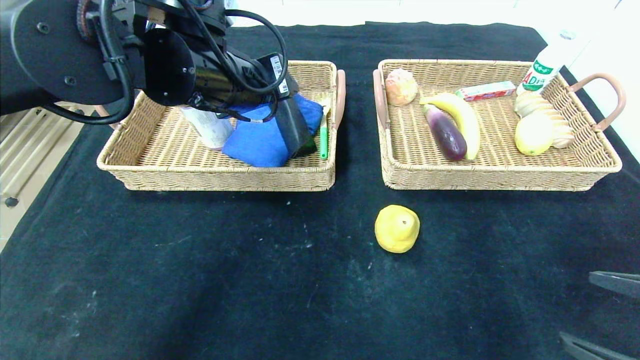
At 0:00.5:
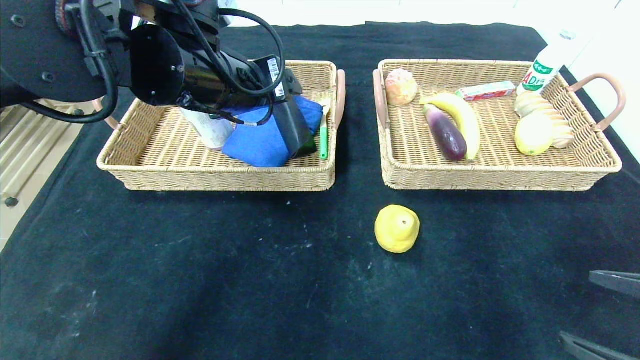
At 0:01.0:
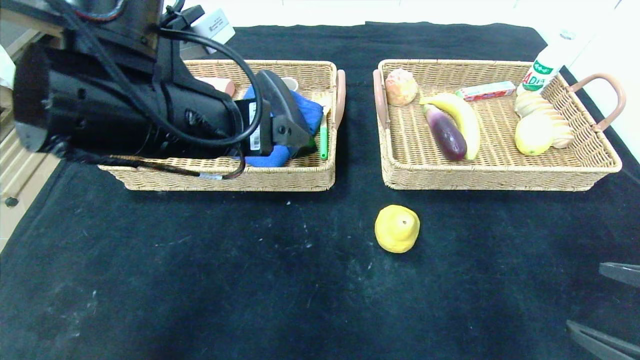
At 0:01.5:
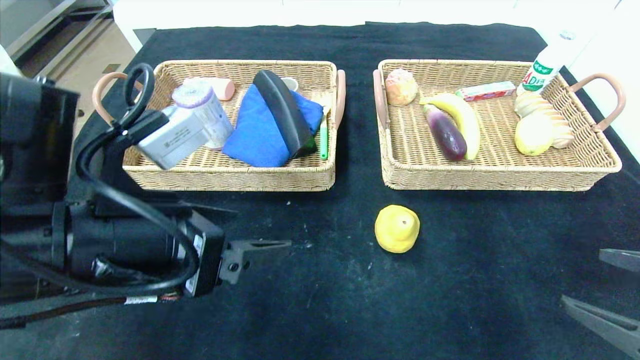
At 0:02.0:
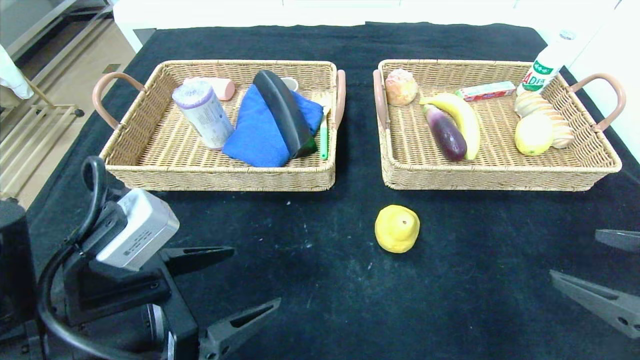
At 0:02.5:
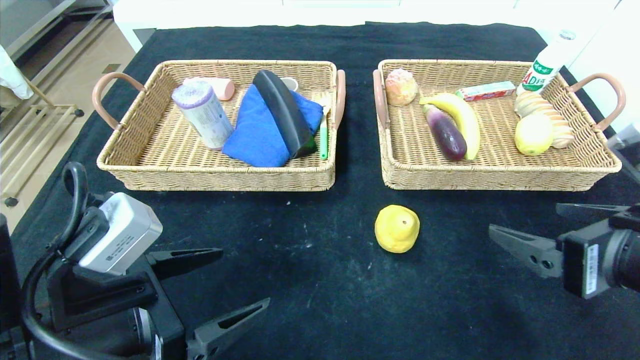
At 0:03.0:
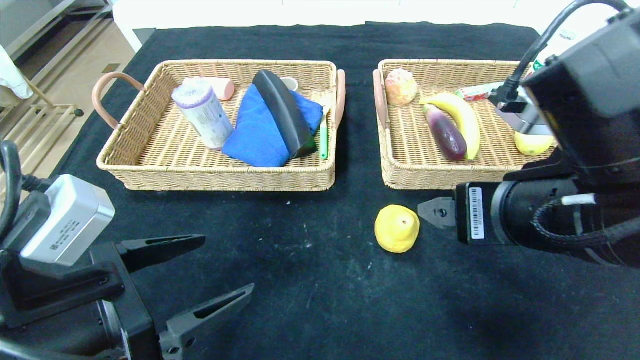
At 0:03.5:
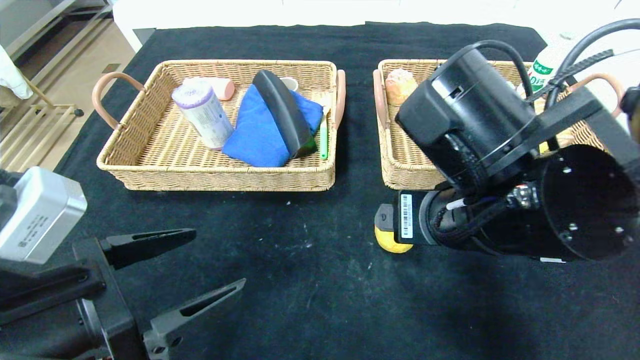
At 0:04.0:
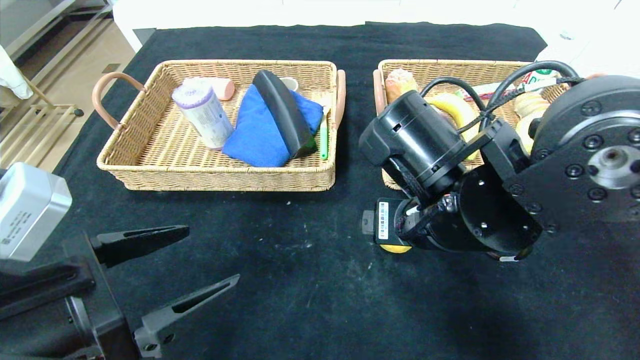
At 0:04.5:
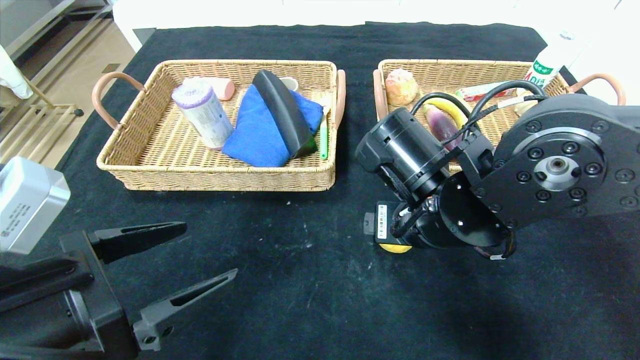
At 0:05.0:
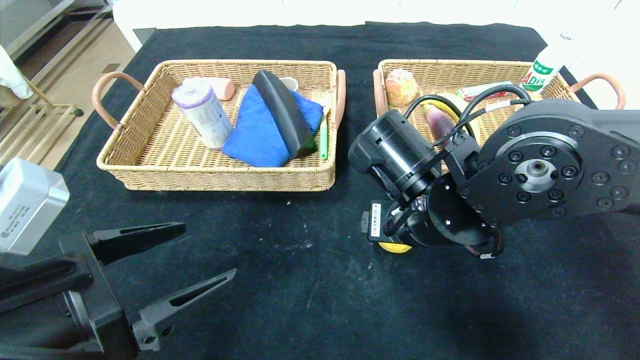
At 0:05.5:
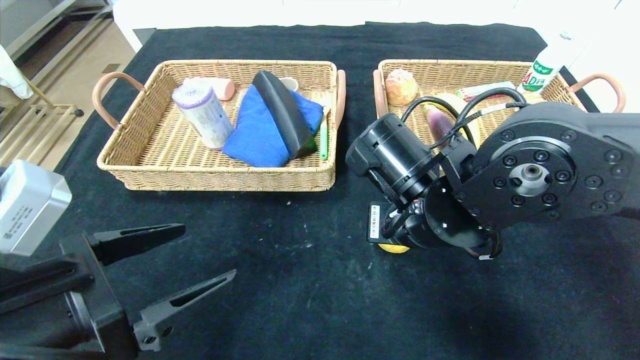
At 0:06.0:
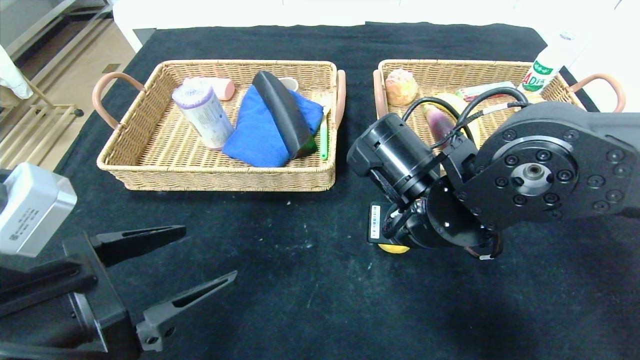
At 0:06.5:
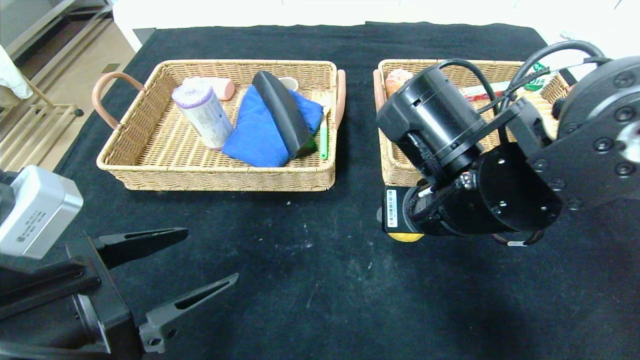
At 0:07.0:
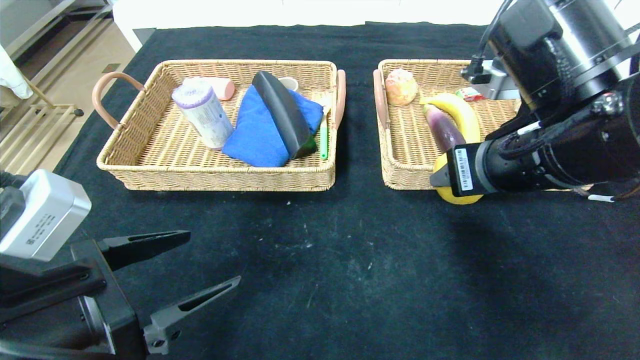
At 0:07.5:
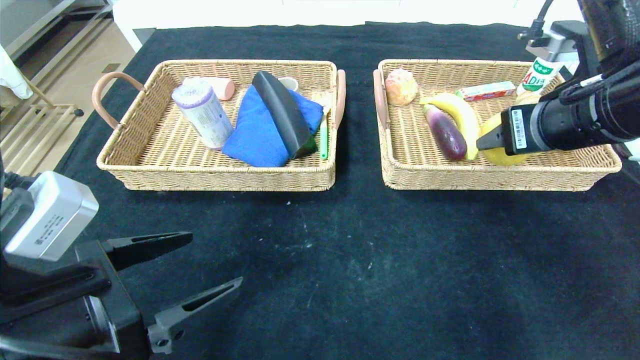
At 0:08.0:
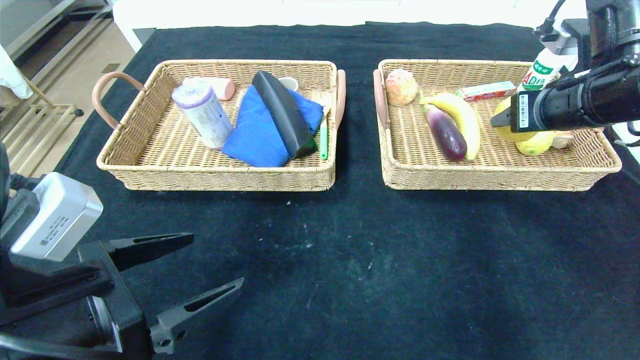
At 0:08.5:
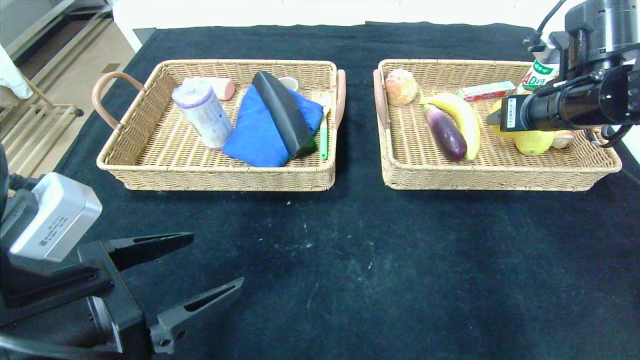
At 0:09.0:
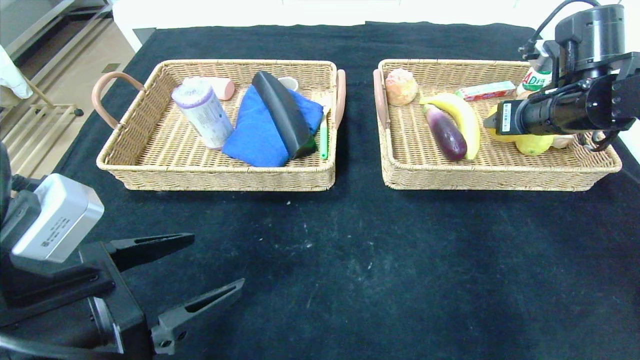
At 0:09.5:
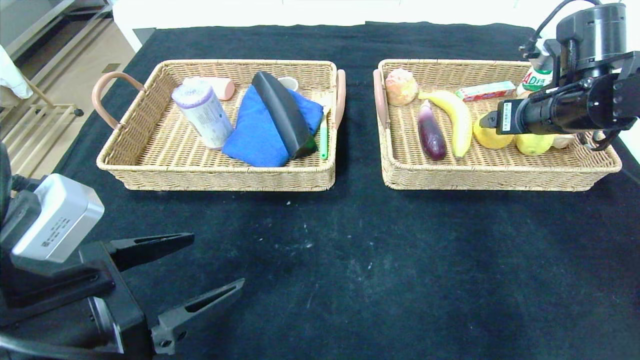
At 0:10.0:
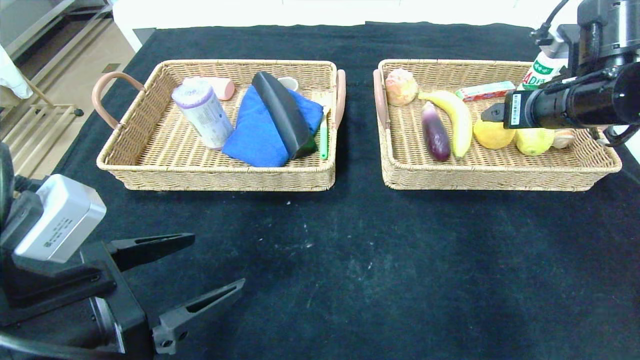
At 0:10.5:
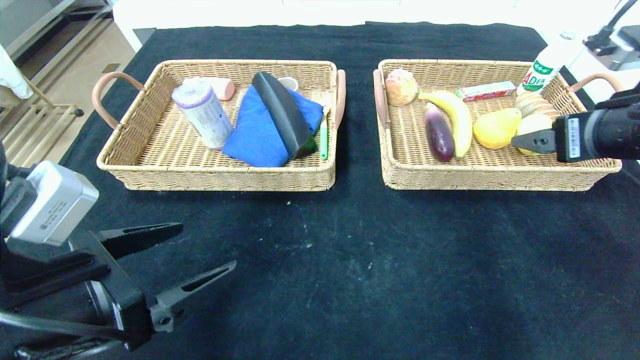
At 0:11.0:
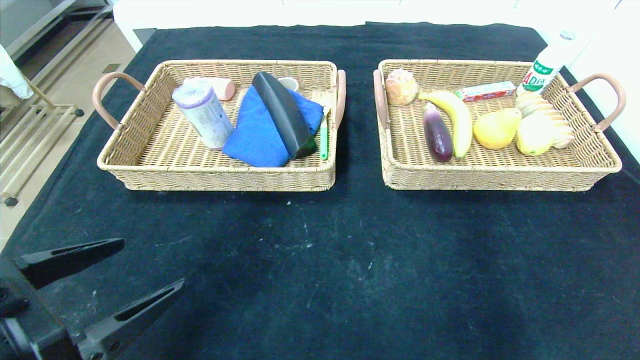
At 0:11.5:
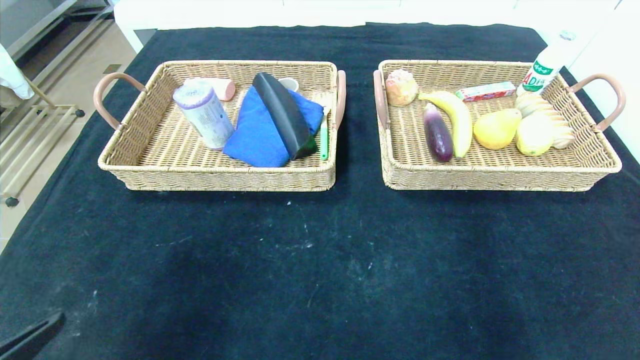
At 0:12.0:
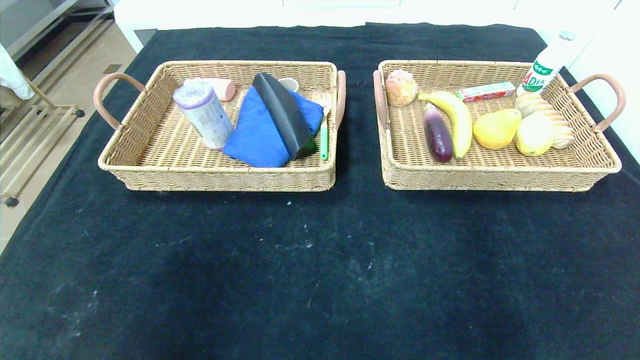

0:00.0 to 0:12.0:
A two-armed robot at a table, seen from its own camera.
Step, 0:00.0 to 0:02.0: Pick up the glasses case and put it in the left basket.
Step, 0:02.5 to 0:11.5: Pick up the pear and put it in the right basket.
0:00.0 to 0:02.0: The left gripper travels backward and downward by about 25 cm.
0:02.0 to 0:04.0: The right gripper is displaced to the left and forward by approximately 25 cm.
0:04.0 to 0:06.0: The right gripper closes.
0:06.0 to 0:08.0: The right gripper is displaced to the right and upward by approximately 20 cm.
0:08.0 to 0:10.0: The right gripper opens up.
0:10.0 to 0:12.0: The right gripper goes approximately 40 cm backward, while the left gripper is displaced backward and to the left by about 15 cm.

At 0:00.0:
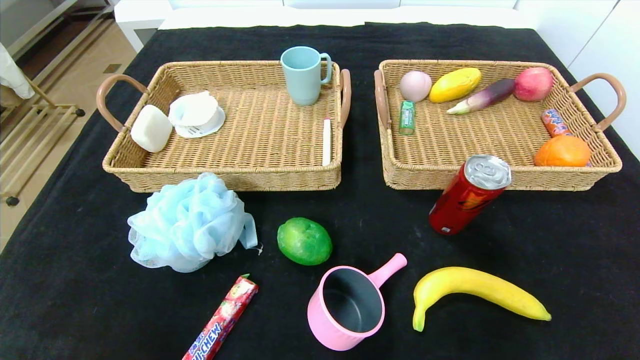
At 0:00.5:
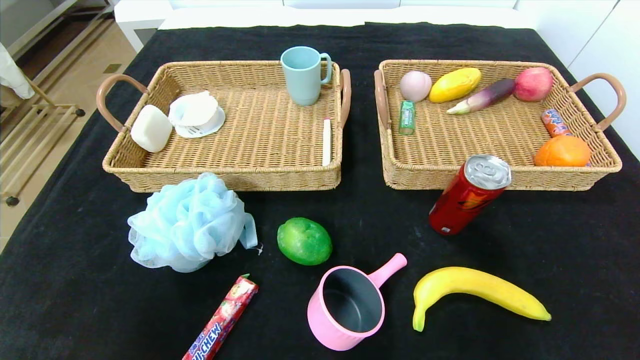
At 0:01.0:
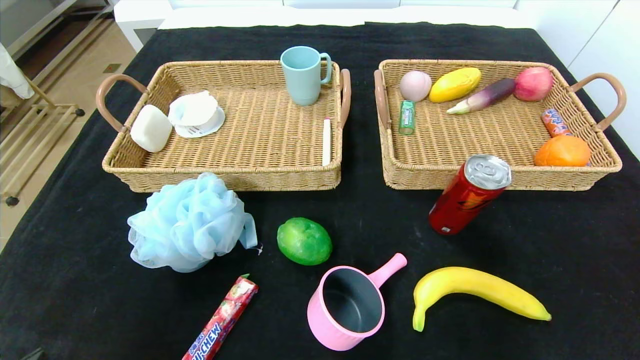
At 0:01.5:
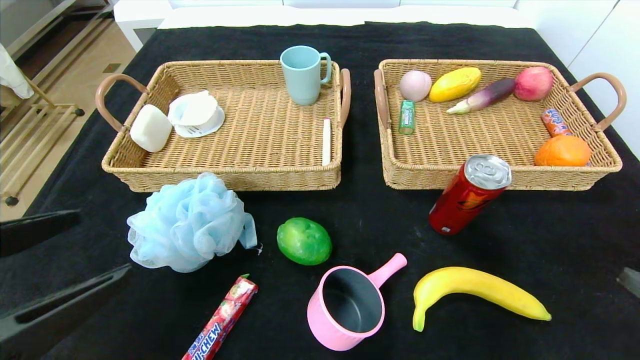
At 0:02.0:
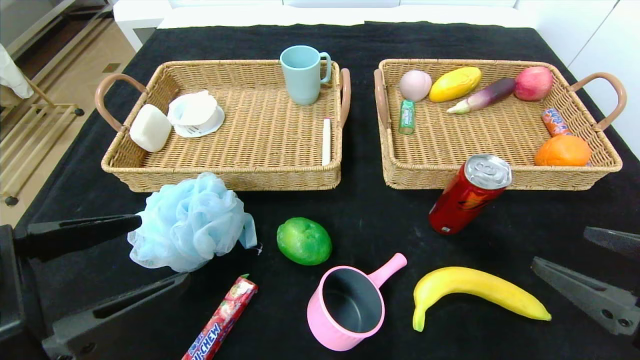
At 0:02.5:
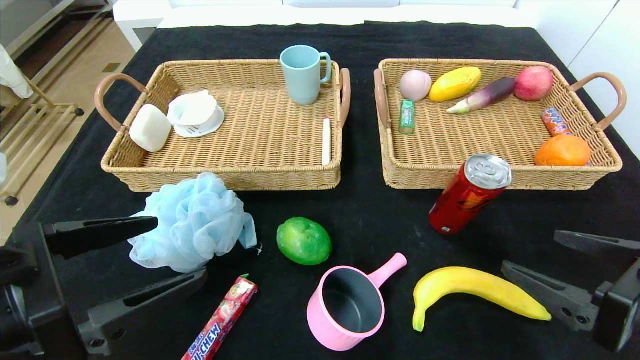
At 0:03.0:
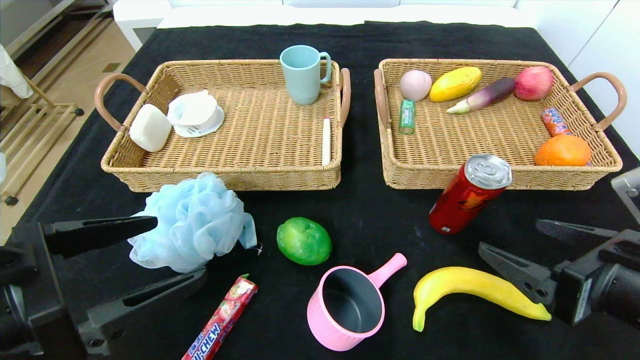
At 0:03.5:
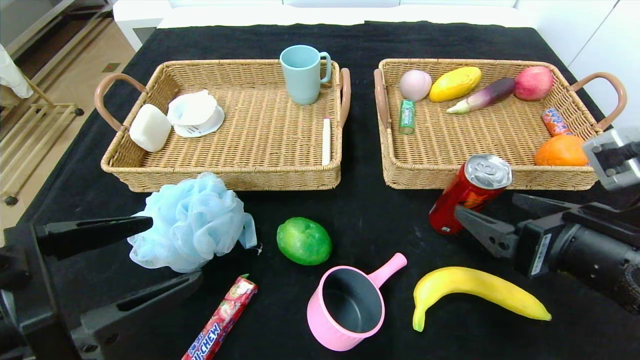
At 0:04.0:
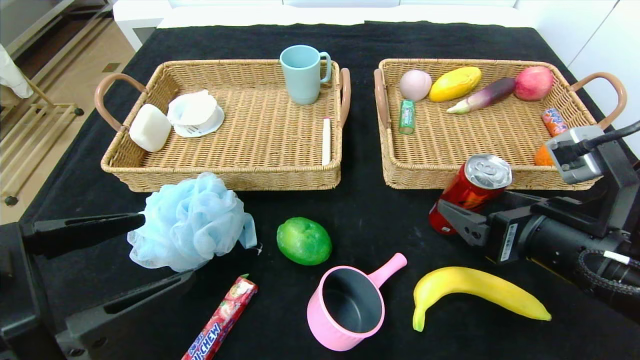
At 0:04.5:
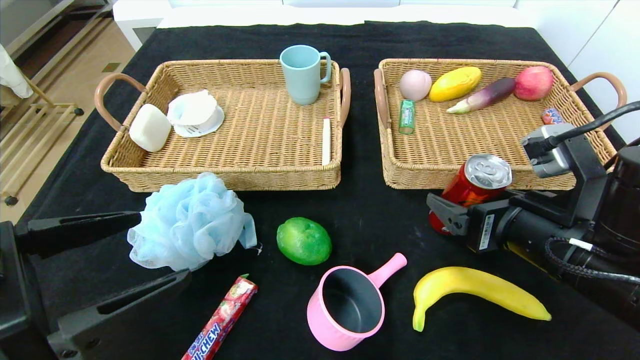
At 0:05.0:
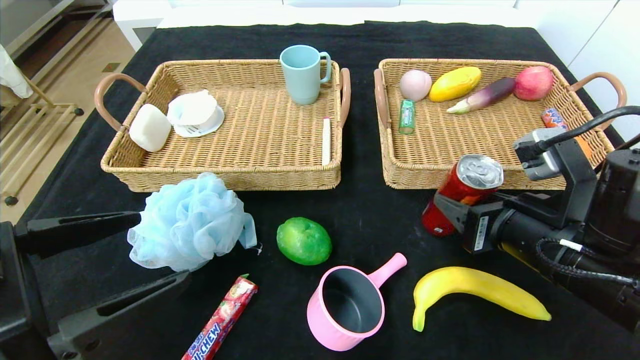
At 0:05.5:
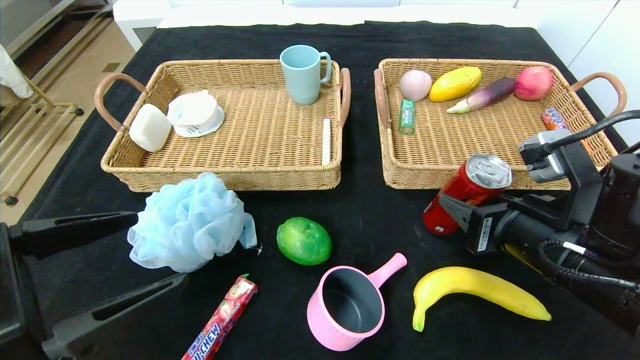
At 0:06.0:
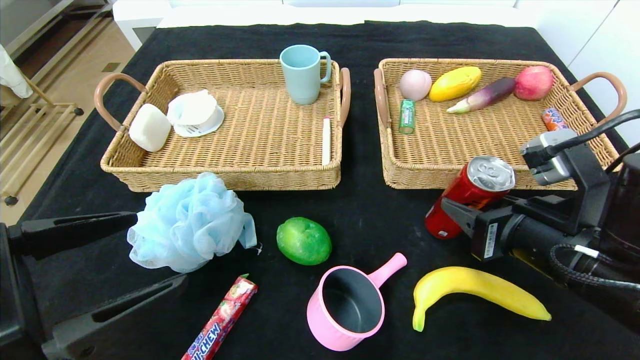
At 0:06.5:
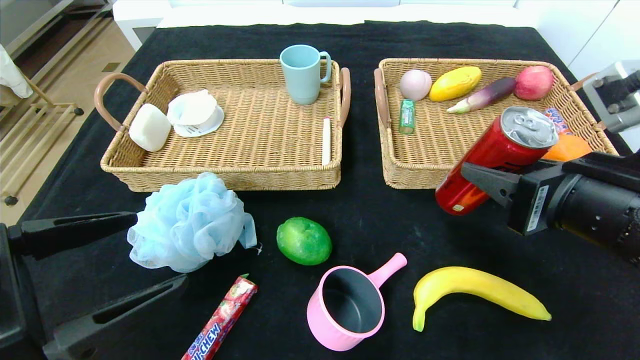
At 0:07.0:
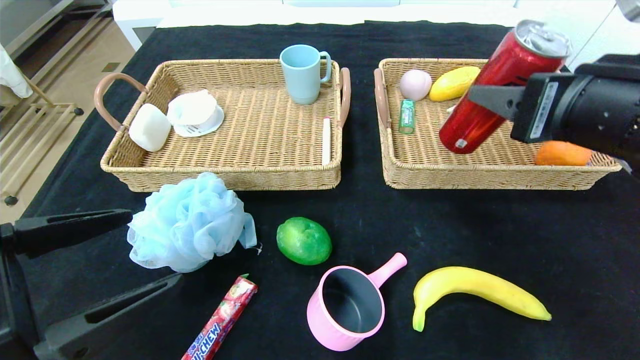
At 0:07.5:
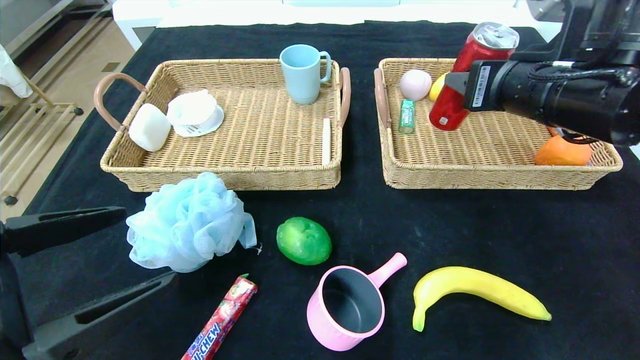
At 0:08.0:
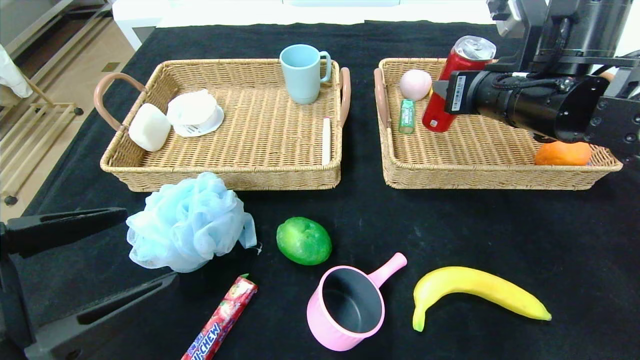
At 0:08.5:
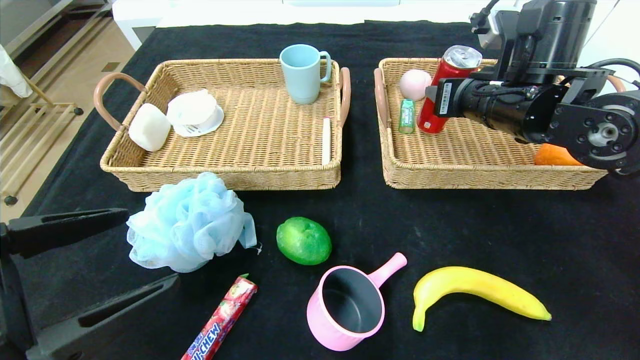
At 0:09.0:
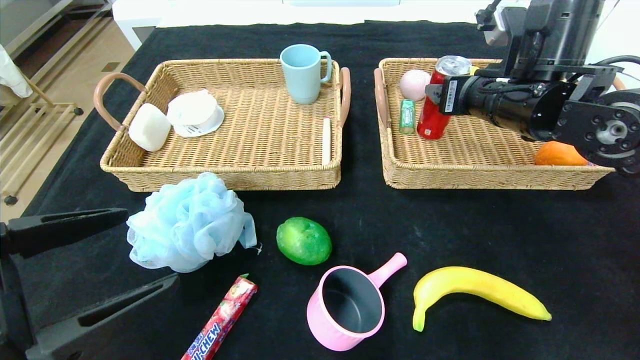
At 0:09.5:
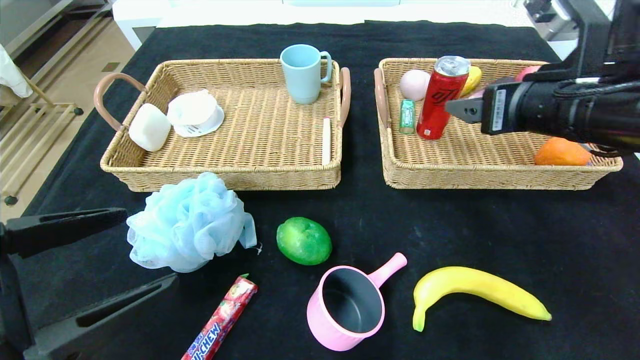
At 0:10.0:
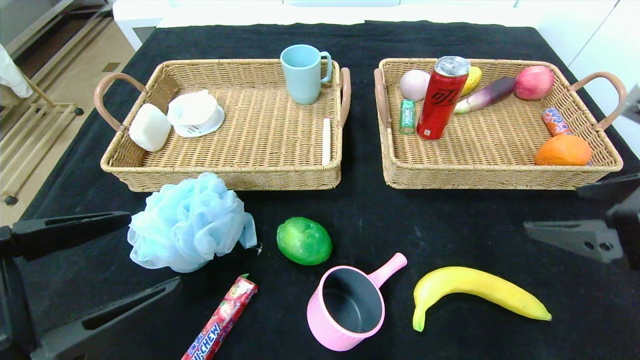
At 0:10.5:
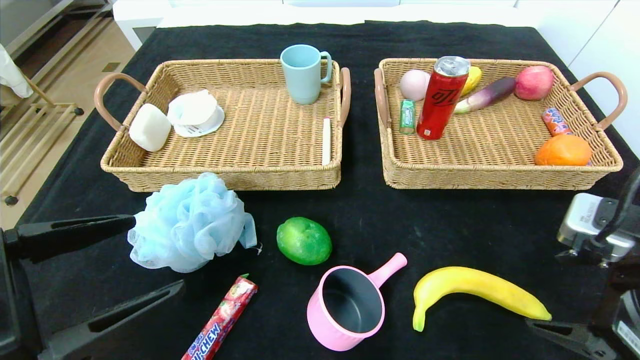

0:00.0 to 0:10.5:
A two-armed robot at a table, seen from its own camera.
Step, 0:00.0 to 0:09.0: Grasp the canned cola and put it in the right basket.
0:00.0 to 0:02.0: The right gripper shifts approximately 20 cm upward, forward and to the left. Meanwhile the left gripper travels upward and forward by about 20 cm.
0:02.0 to 0:04.0: The right gripper goes about 10 cm forward and to the left.
0:04.0 to 0:06.5: The right gripper ends up approximately 5 cm from where it was, and closes up.
0:06.5 to 0:08.5: The right gripper moves forward, approximately 20 cm.
0:08.5 to 0:10.5: The right gripper is displaced backward by roughly 20 cm, and opens.
